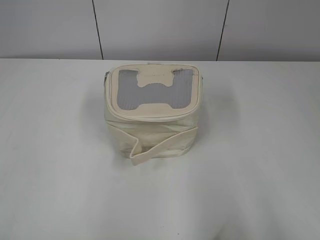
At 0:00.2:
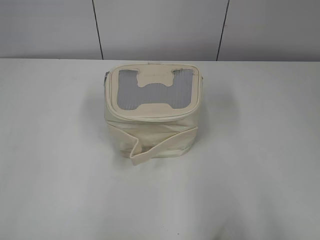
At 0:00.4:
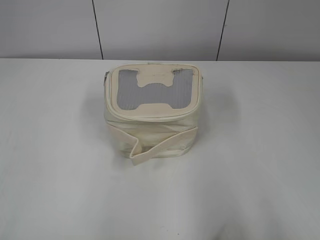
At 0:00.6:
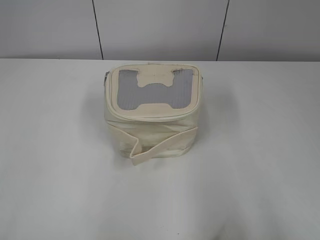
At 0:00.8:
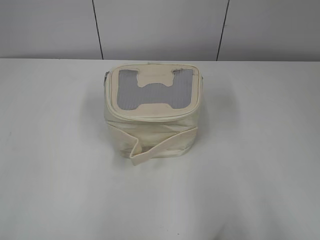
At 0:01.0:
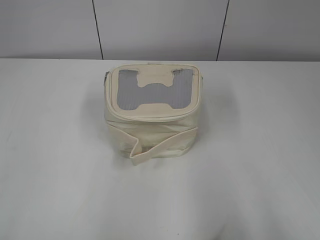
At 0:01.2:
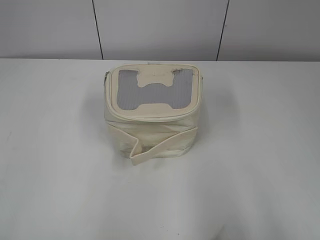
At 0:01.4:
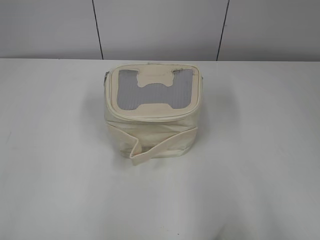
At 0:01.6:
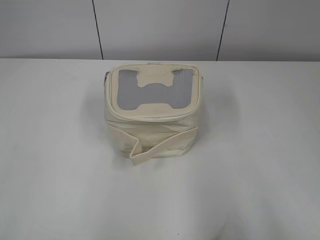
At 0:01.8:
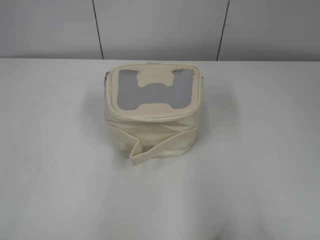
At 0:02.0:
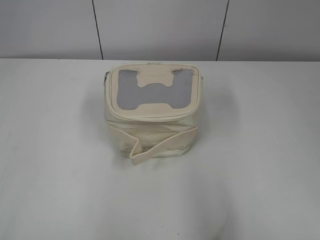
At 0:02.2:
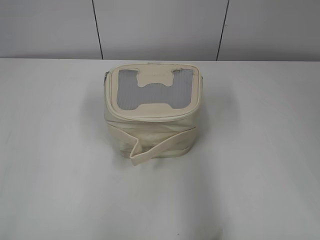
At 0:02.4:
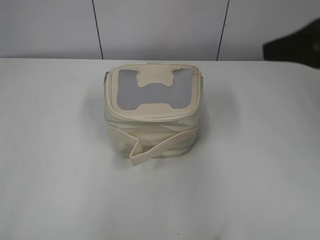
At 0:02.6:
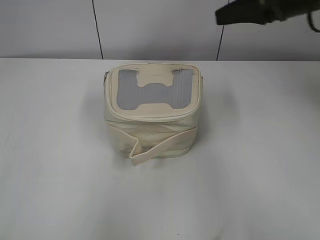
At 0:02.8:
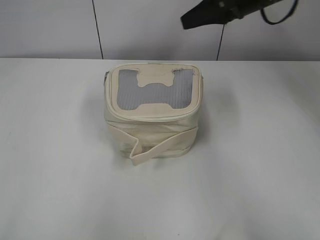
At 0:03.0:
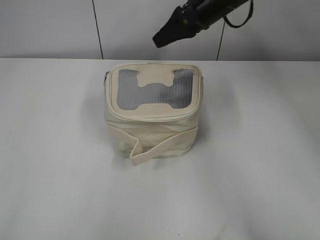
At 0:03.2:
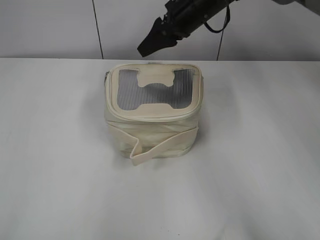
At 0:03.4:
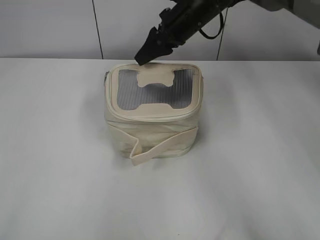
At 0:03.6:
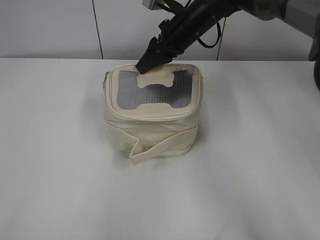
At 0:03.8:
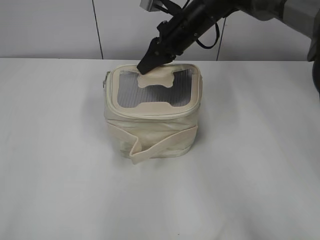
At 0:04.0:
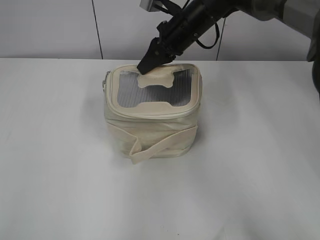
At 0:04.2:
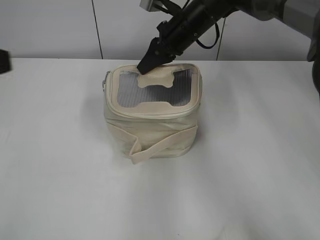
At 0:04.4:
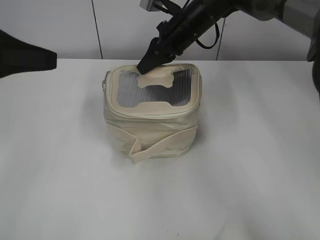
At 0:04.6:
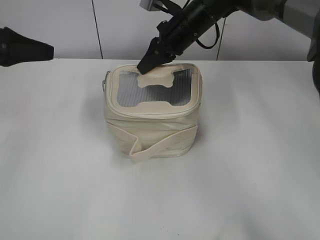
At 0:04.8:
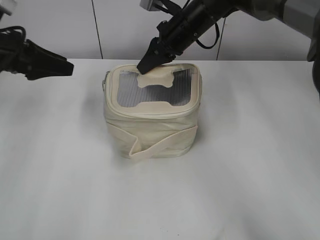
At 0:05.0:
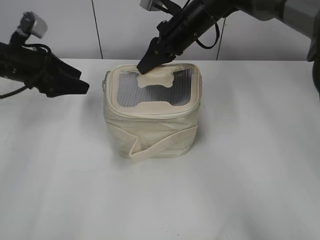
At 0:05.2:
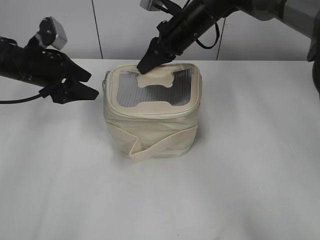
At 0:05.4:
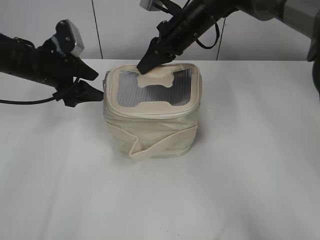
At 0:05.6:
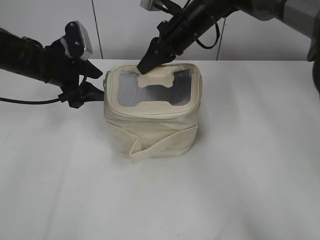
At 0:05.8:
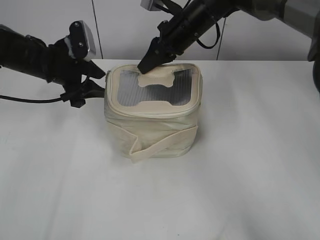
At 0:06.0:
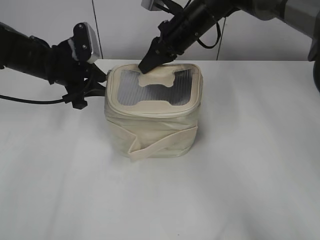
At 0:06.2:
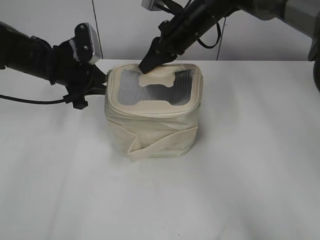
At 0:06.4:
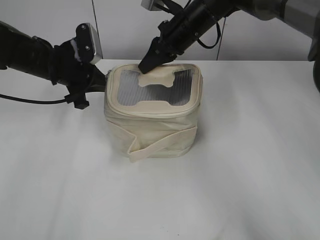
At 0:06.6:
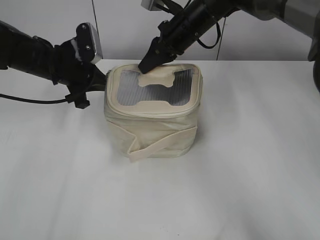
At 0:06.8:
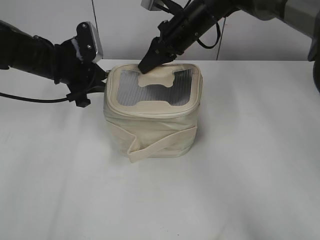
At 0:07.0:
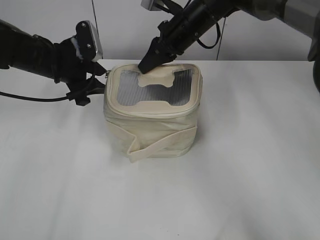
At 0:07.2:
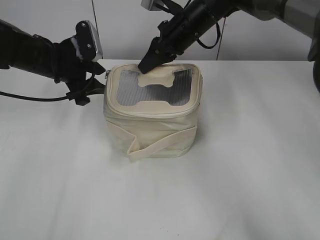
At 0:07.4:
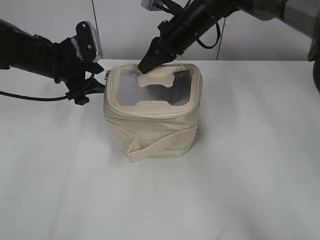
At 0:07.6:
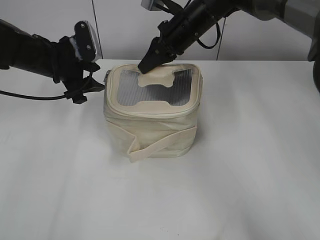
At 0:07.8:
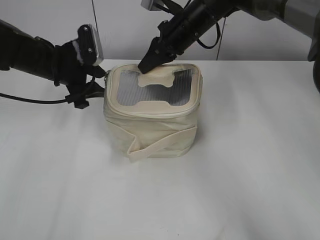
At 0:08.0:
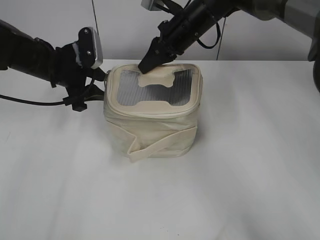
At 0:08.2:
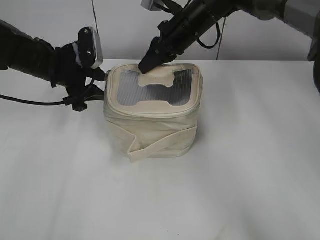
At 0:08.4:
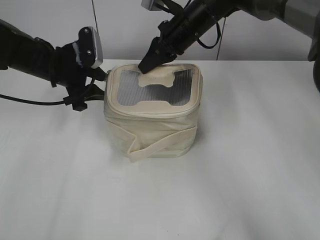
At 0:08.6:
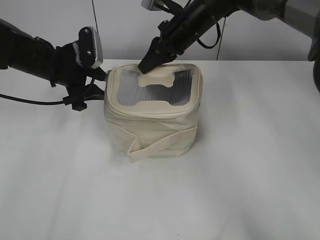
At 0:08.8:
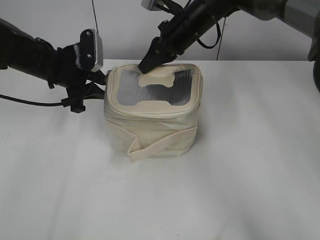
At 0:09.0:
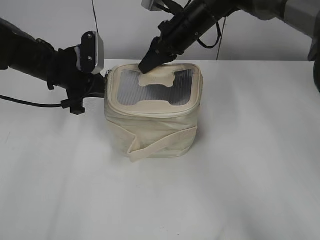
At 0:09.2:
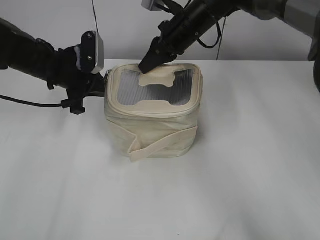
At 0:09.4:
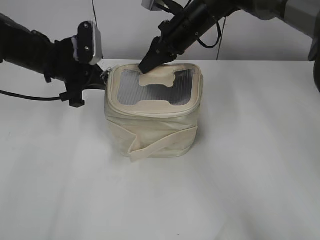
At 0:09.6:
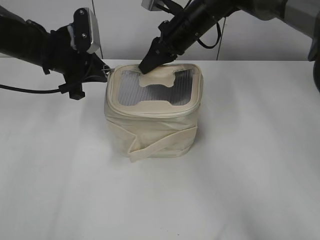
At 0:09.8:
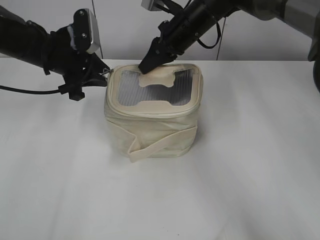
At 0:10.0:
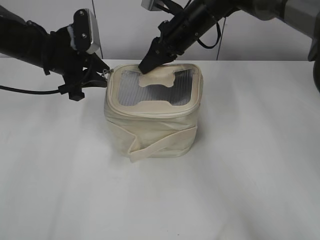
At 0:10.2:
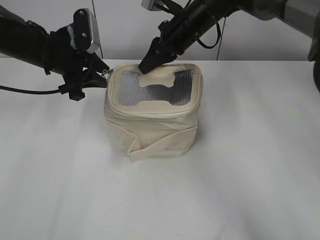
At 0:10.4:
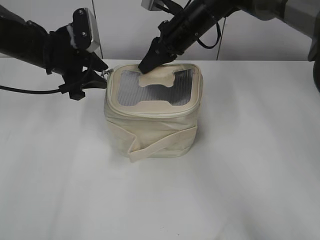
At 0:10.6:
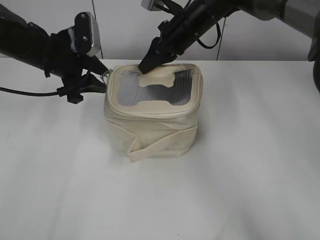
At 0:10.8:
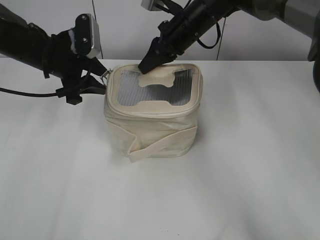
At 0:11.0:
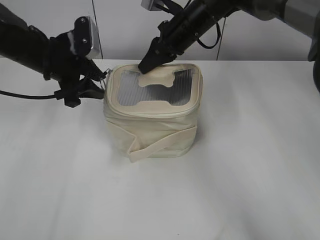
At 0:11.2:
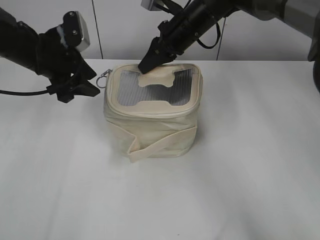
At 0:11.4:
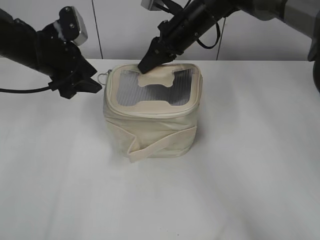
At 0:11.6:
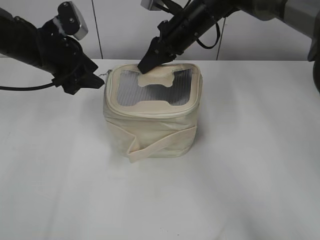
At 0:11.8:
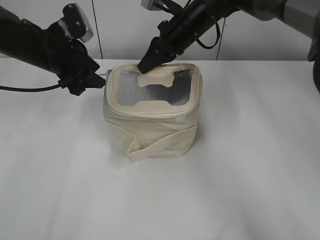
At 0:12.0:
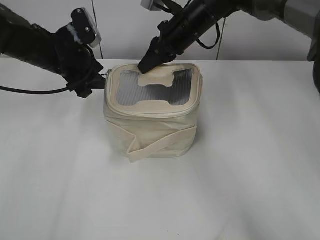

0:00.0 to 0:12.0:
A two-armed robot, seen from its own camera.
0:01.6 to 0:03.0: The right gripper goes some 50 cm forward and to the left.
0:03.0 to 0:04.4: The left gripper shifts approximately 20 cm forward; the right gripper heads downward and to the left, covering approximately 10 cm, and closes up.
0:04.4 to 0:06.0: The left gripper is displaced forward and downward by approximately 20 cm, and opens, then closes once more.
0:06.0 to 0:07.6: The left gripper closes, then opens again.
0:07.6 to 0:09.0: The left gripper closes.
0:09.0 to 0:10.4: The grippers make only small movements.
0:10.4 to 0:12.0: There are only small adjustments of the grippers.

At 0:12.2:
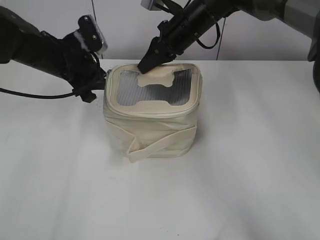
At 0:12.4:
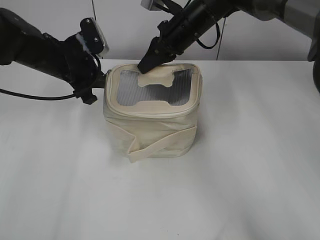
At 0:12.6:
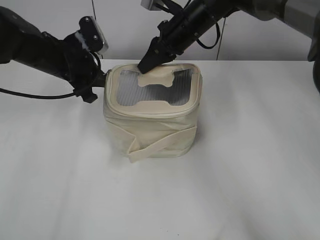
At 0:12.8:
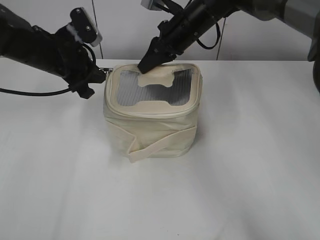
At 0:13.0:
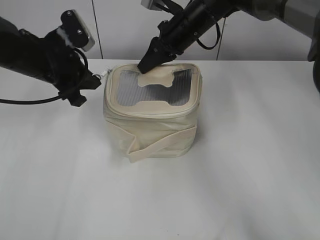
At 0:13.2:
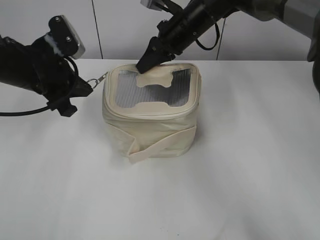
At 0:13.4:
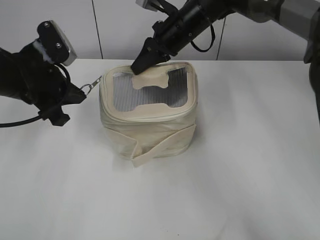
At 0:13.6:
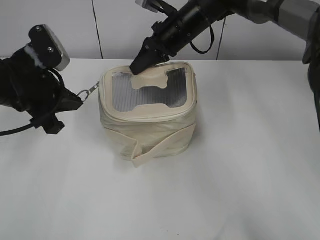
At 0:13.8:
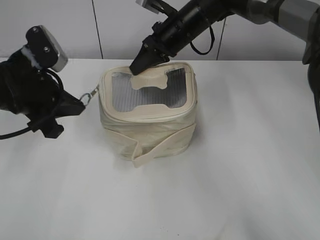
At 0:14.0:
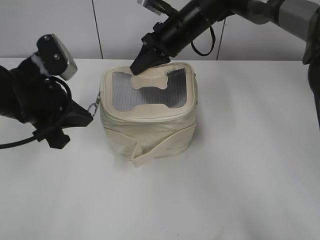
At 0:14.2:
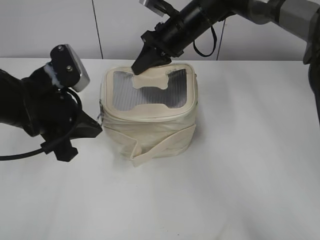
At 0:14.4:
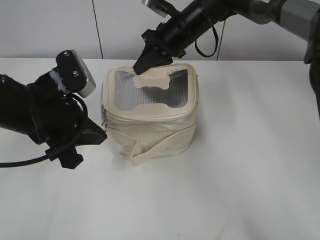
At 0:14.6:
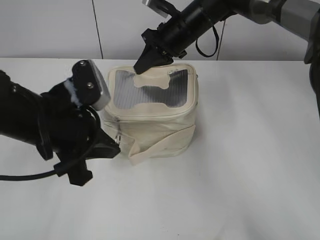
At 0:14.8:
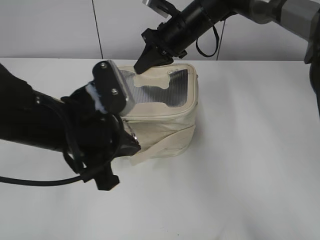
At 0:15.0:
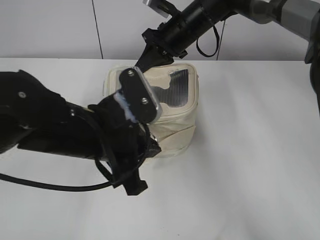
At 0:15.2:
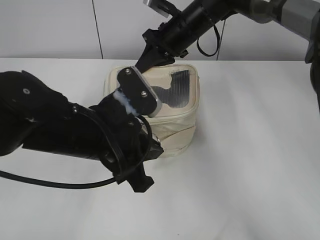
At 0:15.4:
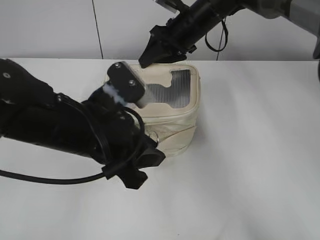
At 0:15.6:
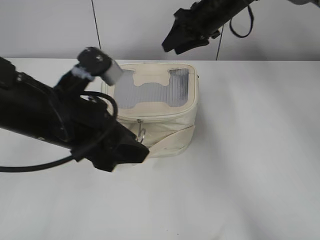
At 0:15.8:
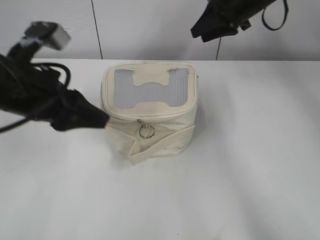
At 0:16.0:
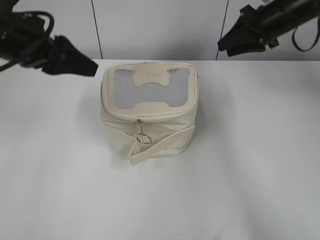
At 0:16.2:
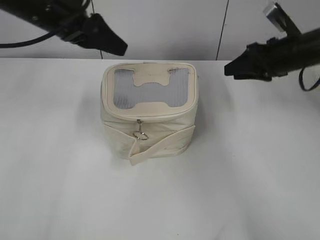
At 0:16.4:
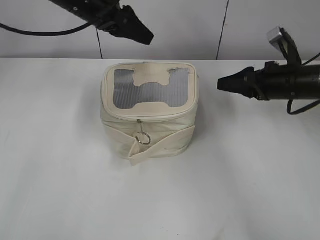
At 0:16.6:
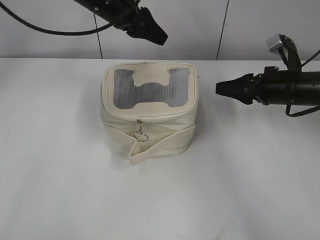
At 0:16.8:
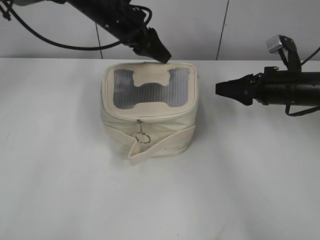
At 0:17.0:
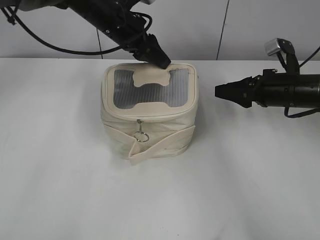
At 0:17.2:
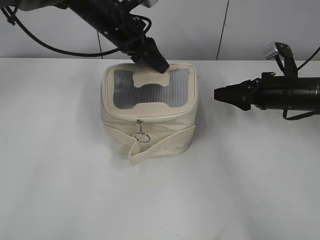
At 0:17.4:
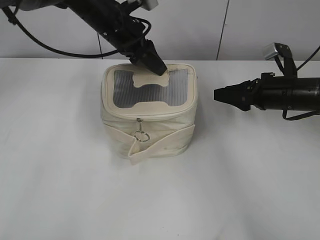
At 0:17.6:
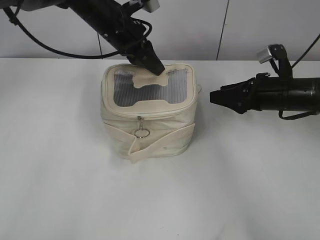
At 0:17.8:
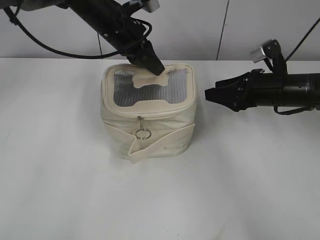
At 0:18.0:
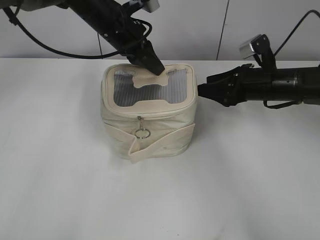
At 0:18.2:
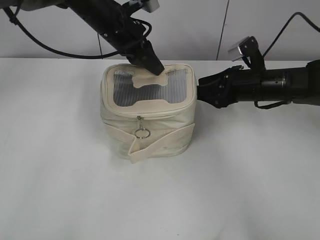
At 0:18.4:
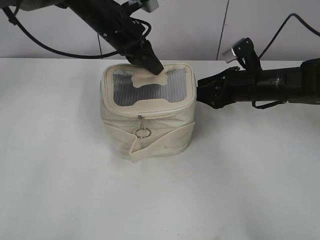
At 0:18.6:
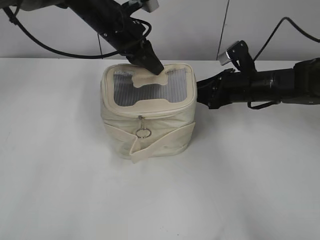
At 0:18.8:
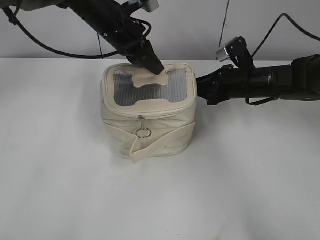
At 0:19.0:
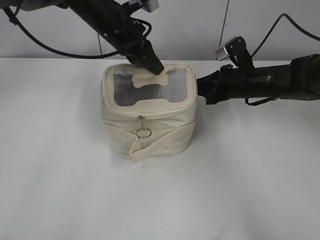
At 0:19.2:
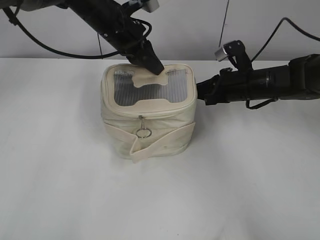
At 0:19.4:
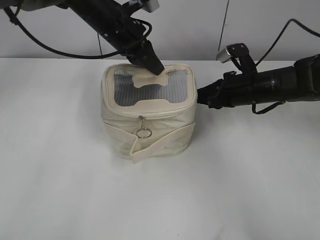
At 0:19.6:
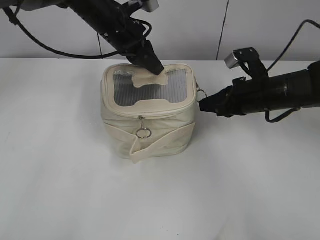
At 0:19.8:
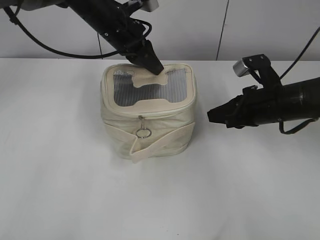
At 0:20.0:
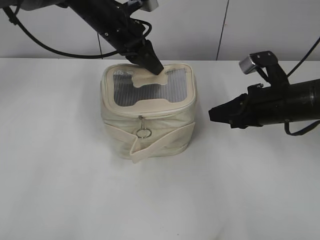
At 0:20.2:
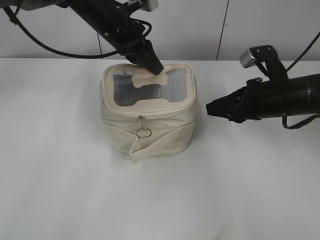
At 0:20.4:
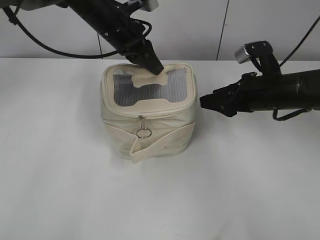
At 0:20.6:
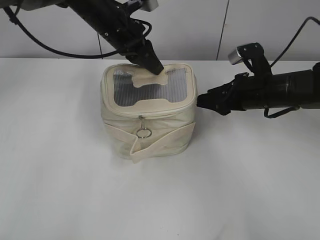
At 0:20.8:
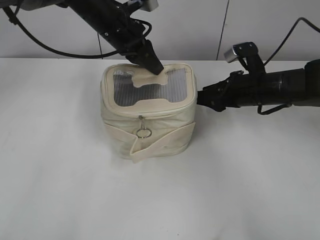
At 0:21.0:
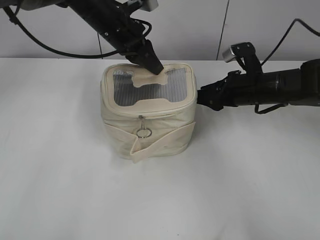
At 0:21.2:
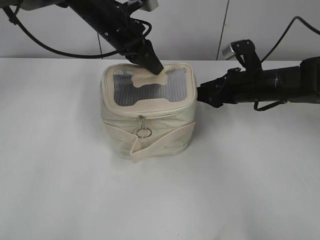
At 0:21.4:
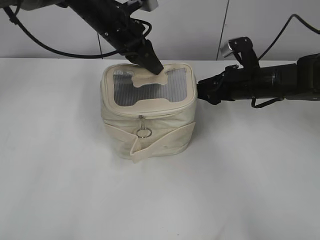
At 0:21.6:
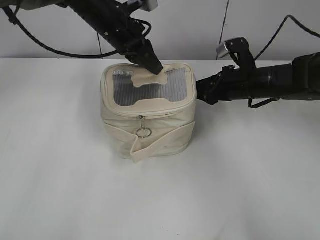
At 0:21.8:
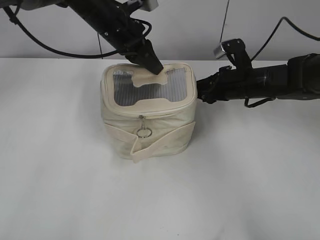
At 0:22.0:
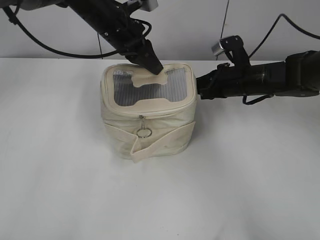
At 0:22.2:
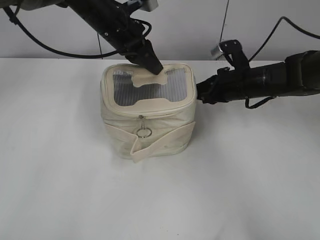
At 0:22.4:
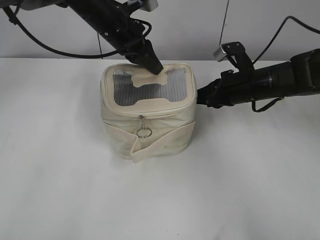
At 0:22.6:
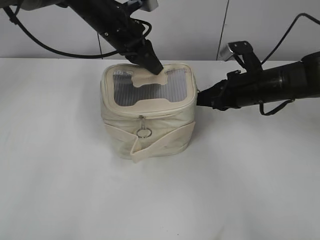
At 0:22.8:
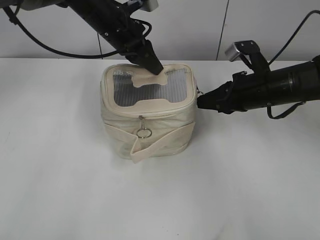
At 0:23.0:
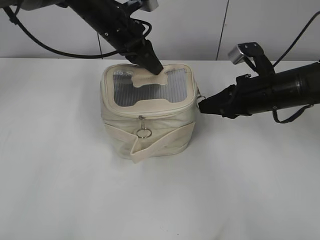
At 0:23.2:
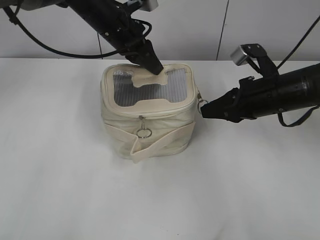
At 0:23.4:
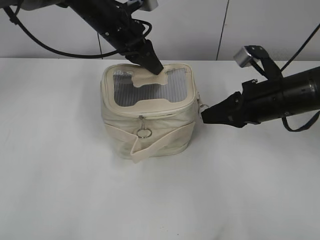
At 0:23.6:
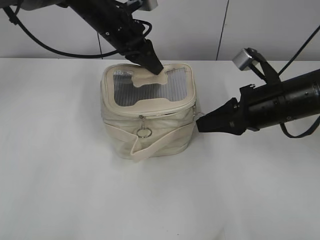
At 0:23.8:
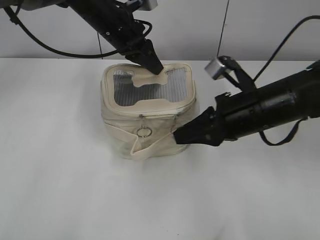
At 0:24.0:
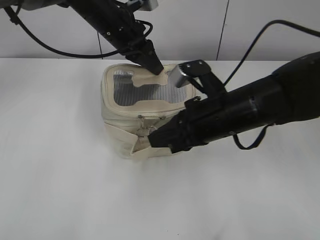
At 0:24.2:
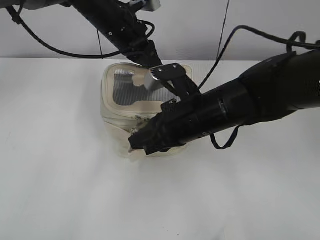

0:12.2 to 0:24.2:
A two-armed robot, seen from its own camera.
0:12.2 to 0:13.8: The left gripper goes some 10 cm backward, and closes.
0:13.8 to 0:15.2: The left gripper shifts some 15 cm to the right and backward.
0:15.2 to 0:16.6: The left gripper goes roughly 25 cm forward, and opens up. Meanwhile the right gripper is displaced to the right and backward by about 20 cm, and opens.
0:16.6 to 0:18.2: The left gripper travels downward by roughly 5 cm, and closes, while the right gripper shifts by about 5 cm.
0:18.2 to 0:19.8: The right gripper ends up about 5 cm from where it was, and closes.
0:19.8 to 0:21.2: The right gripper changes place by approximately 5 cm, and opens its fingers.
0:21.2 to 0:22.6: The right gripper closes up.
0:22.6 to 0:24.2: The right gripper goes approximately 15 cm to the left and backward.
